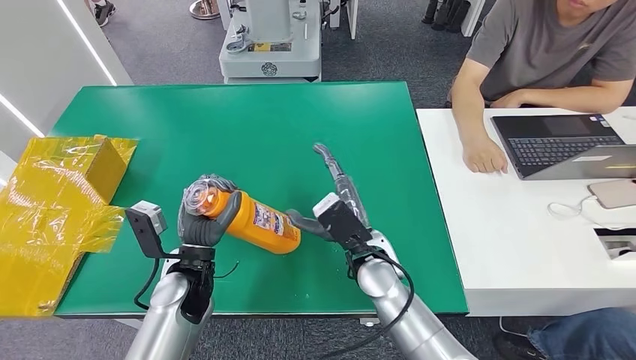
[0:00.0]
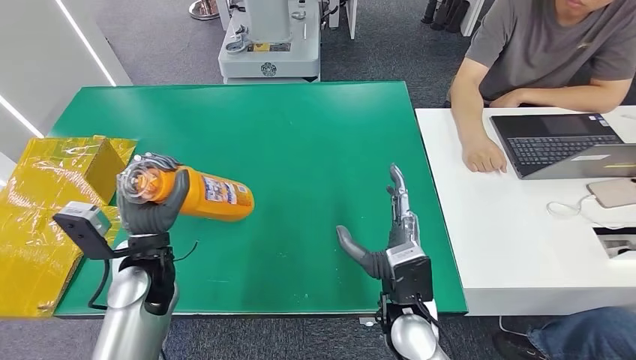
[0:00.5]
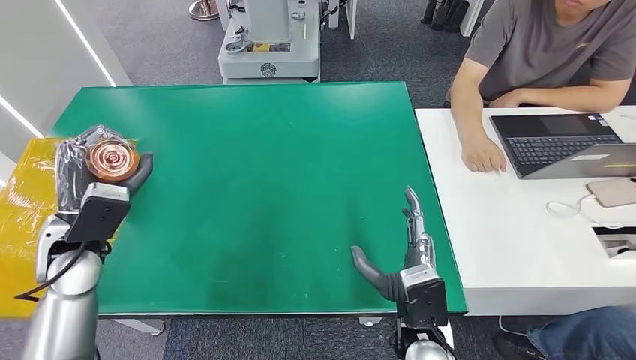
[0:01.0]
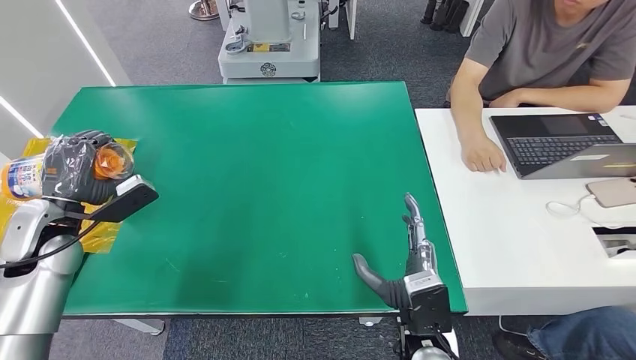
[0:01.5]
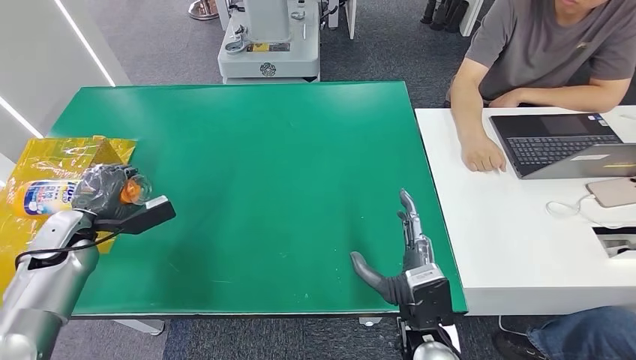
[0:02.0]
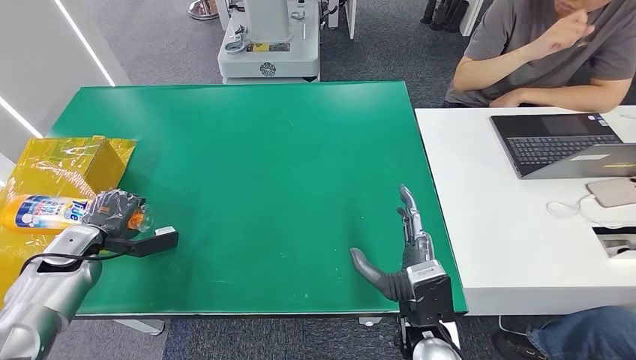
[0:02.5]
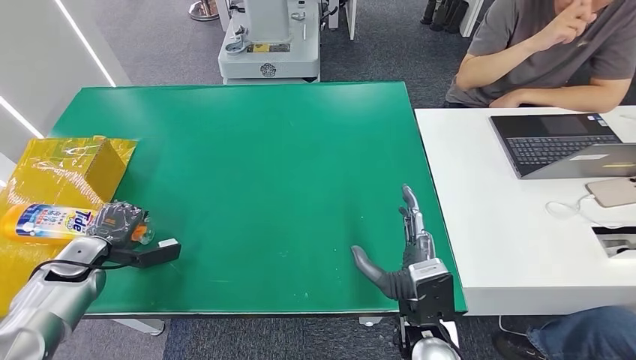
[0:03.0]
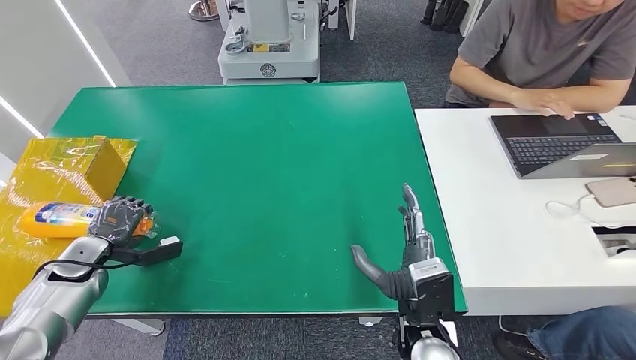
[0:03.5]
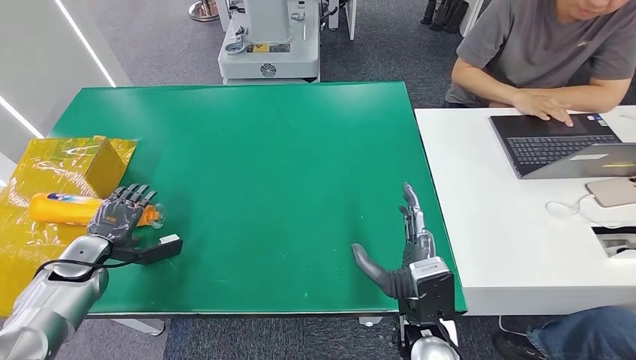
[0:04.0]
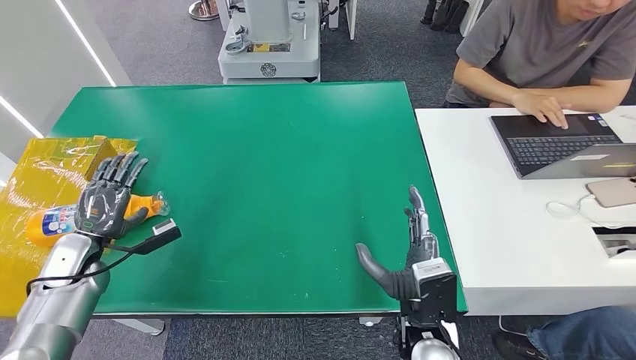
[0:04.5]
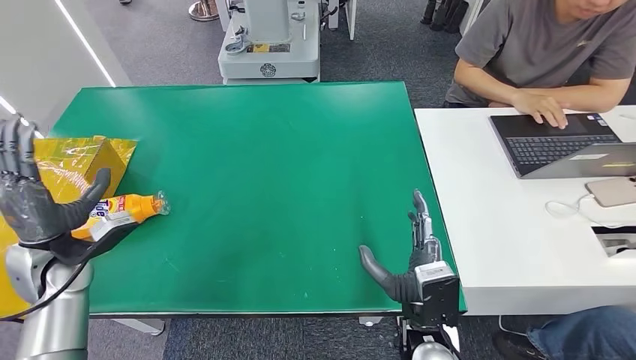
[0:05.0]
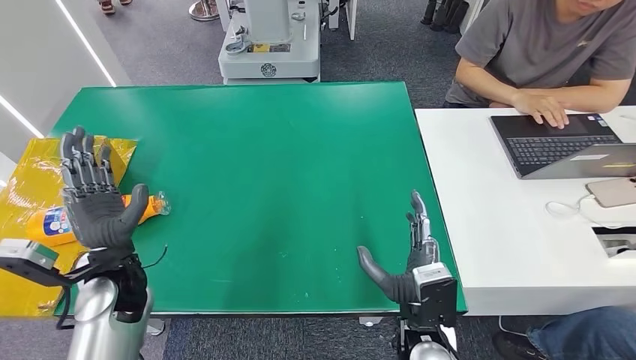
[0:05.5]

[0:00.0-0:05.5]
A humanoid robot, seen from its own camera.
Step, 0:00.0 to 0:05.5: Turn the bottle to the front side.
0:02.0 to 0:03.5: The left hand goes approximately 5 cm downward.
0:03.5 to 0:05.5: The left hand shifts roughly 20 cm to the right and upward.
